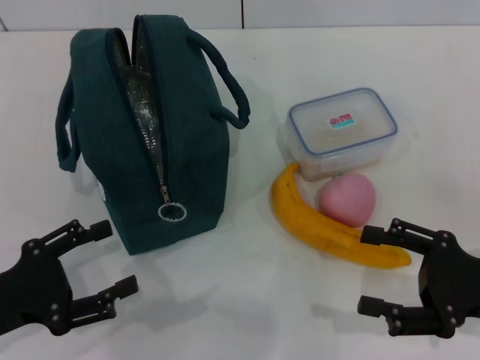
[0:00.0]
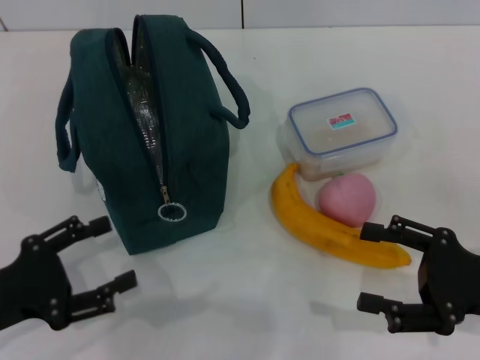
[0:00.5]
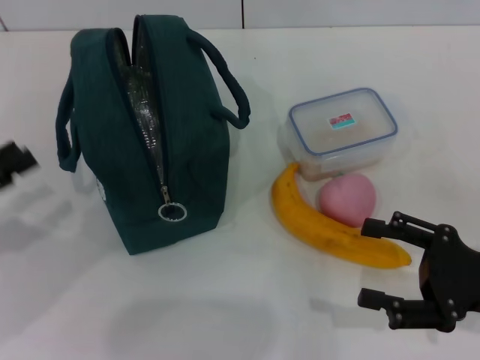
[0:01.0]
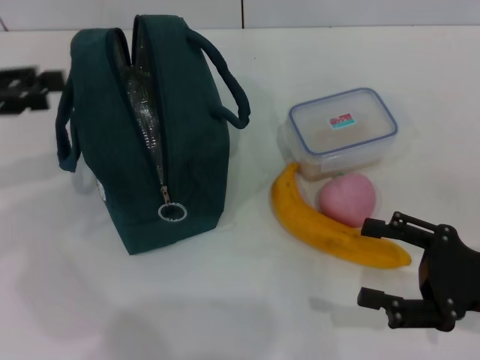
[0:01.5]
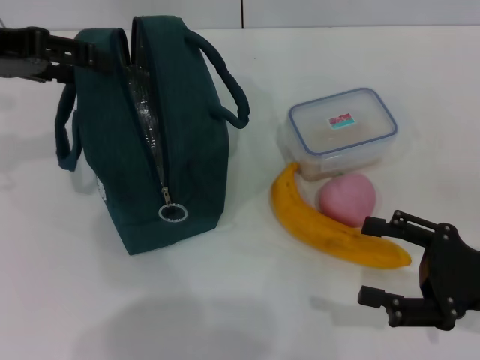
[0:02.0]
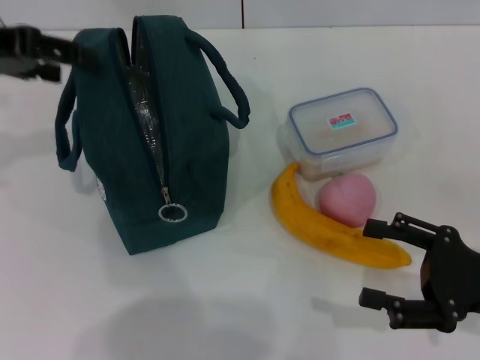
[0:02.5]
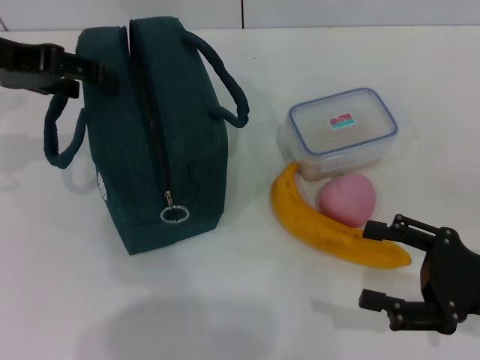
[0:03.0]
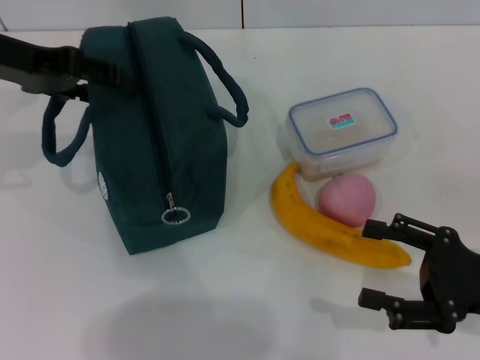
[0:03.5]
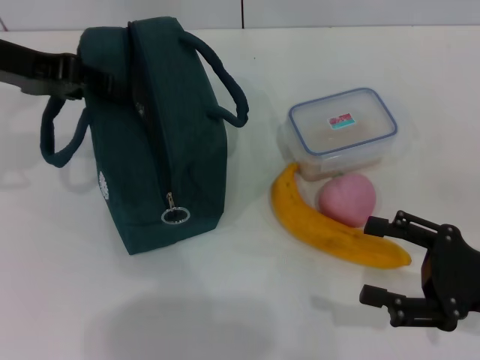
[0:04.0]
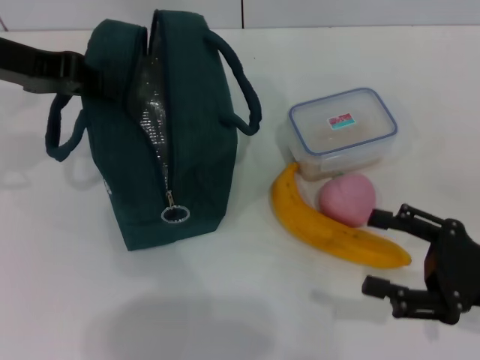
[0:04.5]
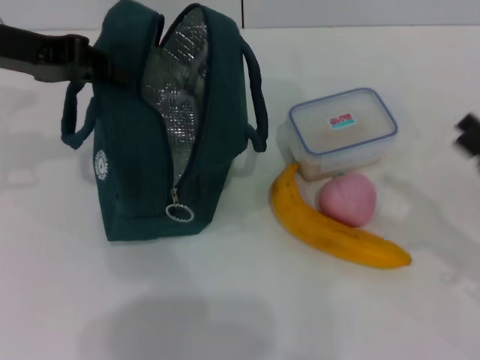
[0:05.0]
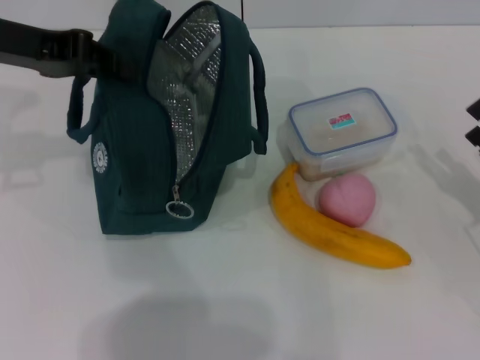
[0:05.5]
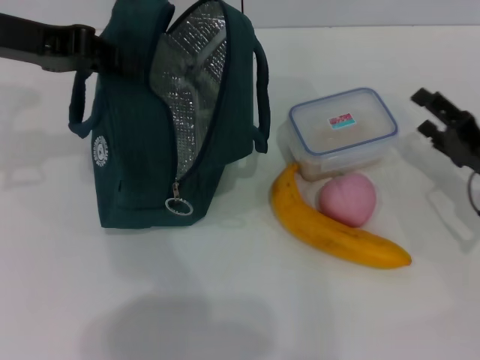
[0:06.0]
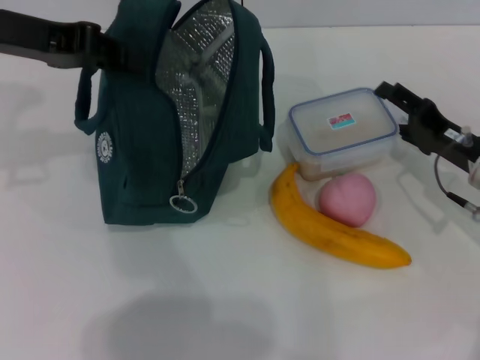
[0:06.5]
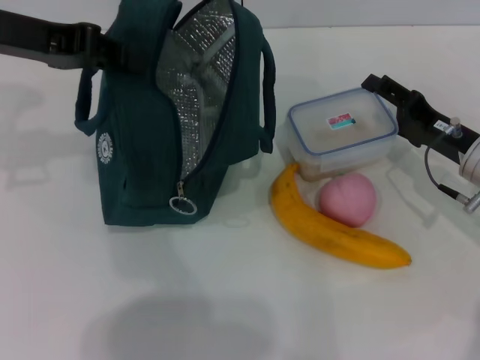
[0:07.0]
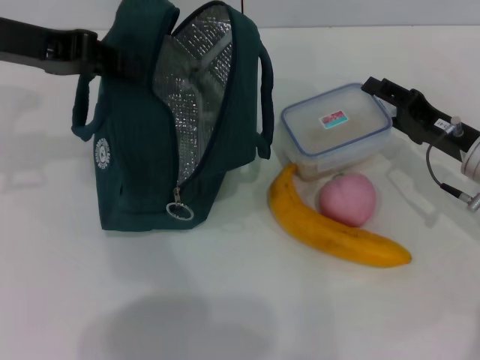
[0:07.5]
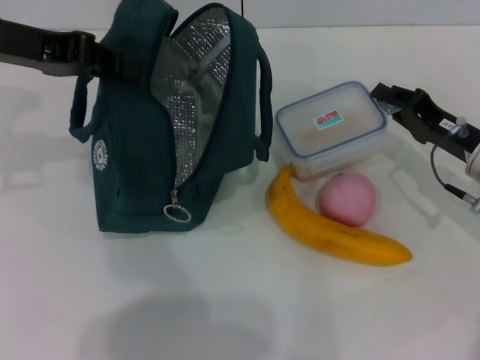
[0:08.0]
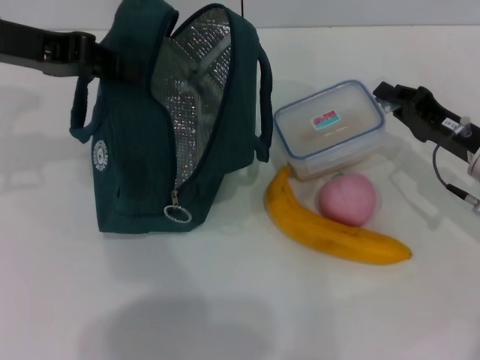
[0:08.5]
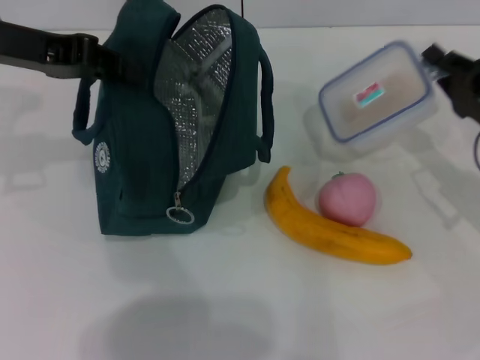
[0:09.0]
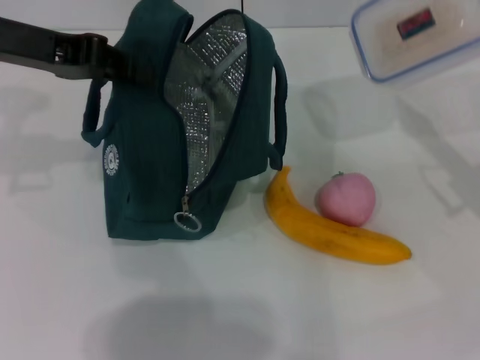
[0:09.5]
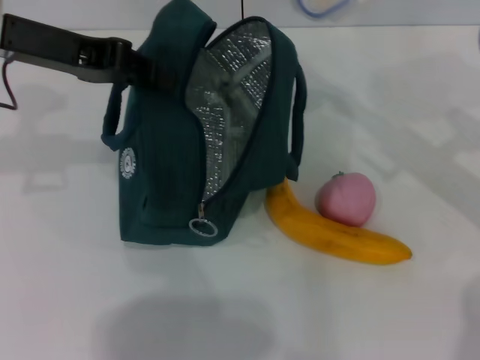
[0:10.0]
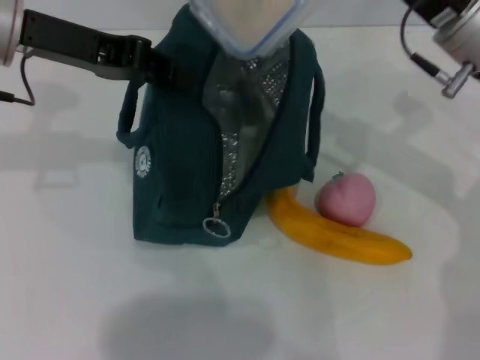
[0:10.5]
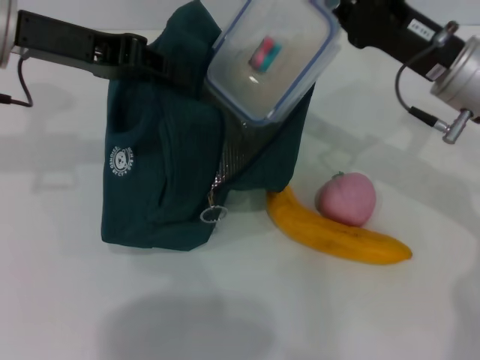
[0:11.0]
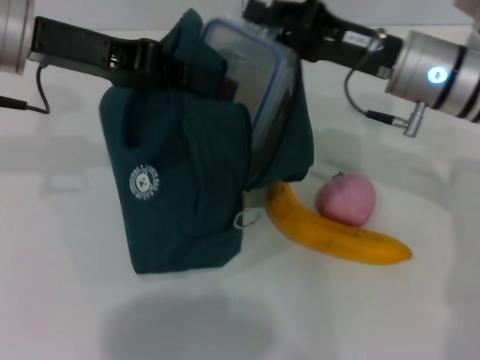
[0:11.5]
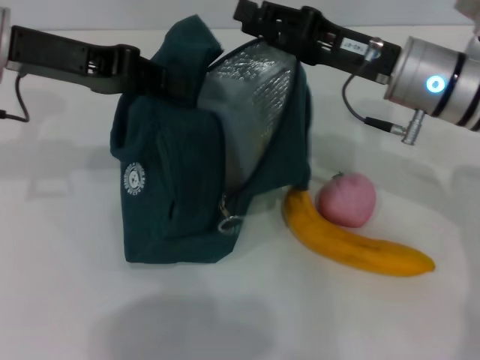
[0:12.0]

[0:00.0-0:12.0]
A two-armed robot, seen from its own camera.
Step, 0:00.0 to 0:04.5: Hold the lunch bag with your left hand.
Step, 0:05.0 to 0:08.5: Pick up the lunch box with your right hand.
Step, 0:09.0 to 0:12.0: Place the lunch box into the lunch bag with your right hand.
0:00.0 to 0:02.0: The left gripper is displaced upward and forward by some 25 cm.
0:02.0 to 0:04.0: The grippers stay close to where they were, moving slightly.
0:04.0 to 0:06.0: The right gripper travels forward by roughly 10 cm. Meanwhile the left gripper closes up.
0:06.0 to 0:08.0: The right gripper moves about 5 cm, and closes up.
0:08.0 to 0:10.0: The right gripper moves upward, roughly 10 cm.
0:10.0 to 0:12.0: The right gripper moves to the left, some 10 cm.

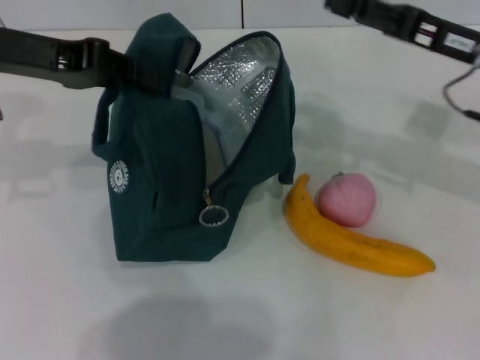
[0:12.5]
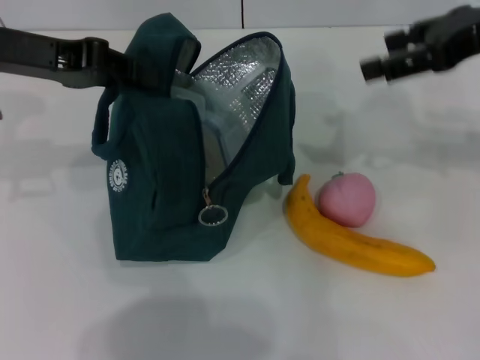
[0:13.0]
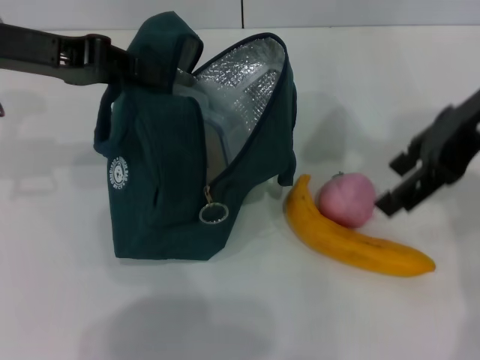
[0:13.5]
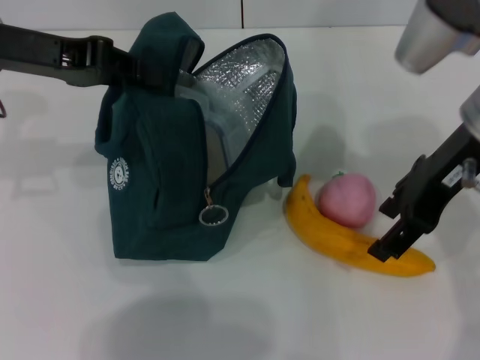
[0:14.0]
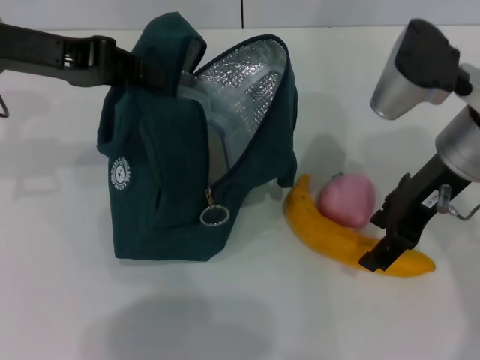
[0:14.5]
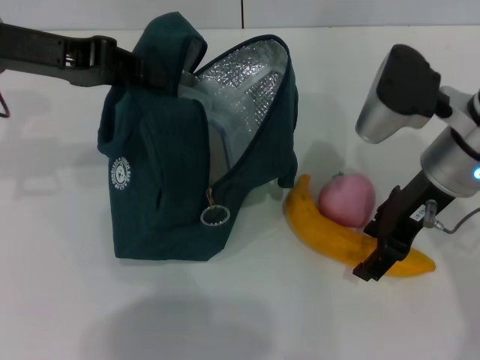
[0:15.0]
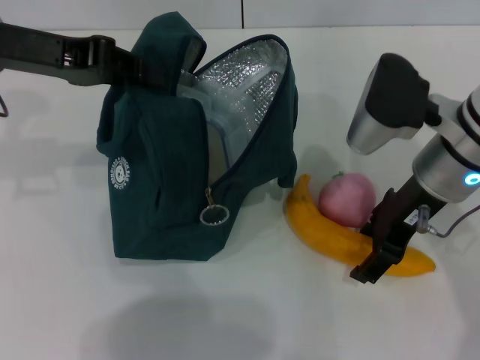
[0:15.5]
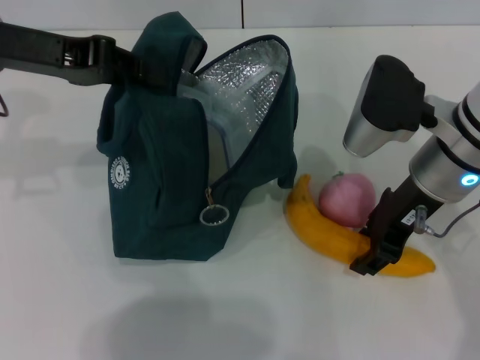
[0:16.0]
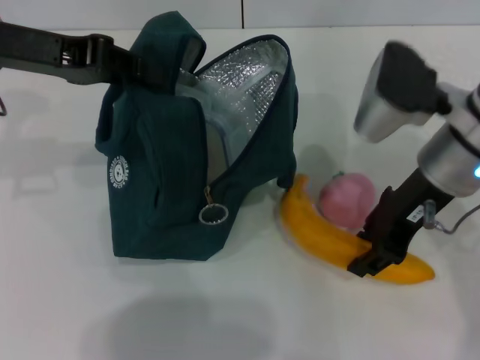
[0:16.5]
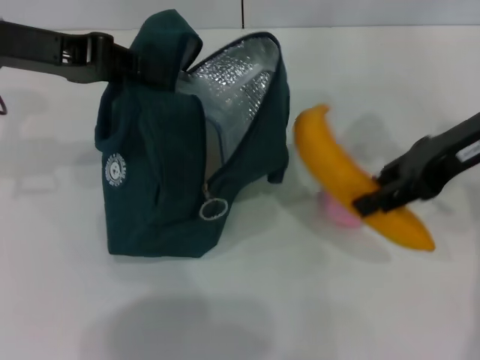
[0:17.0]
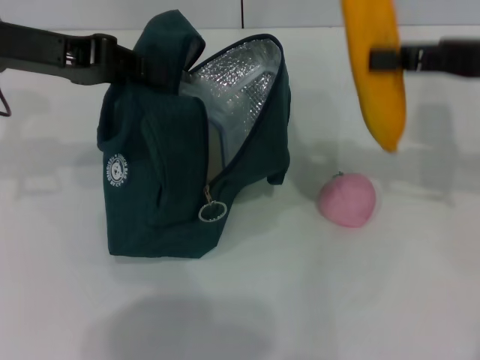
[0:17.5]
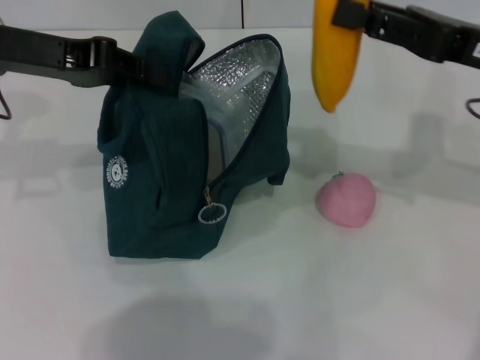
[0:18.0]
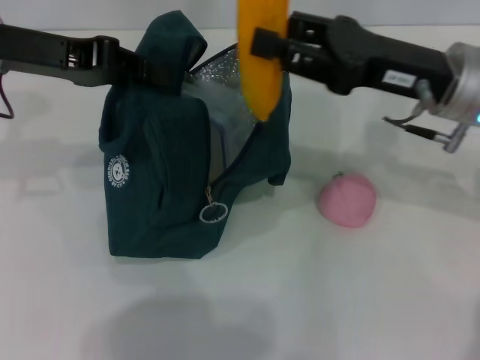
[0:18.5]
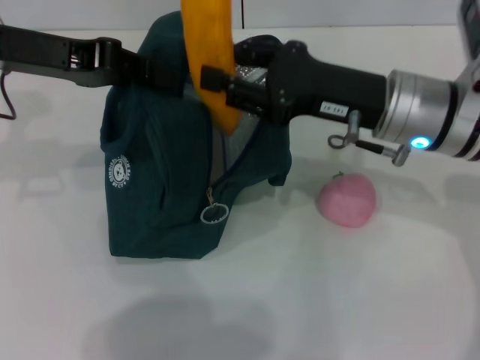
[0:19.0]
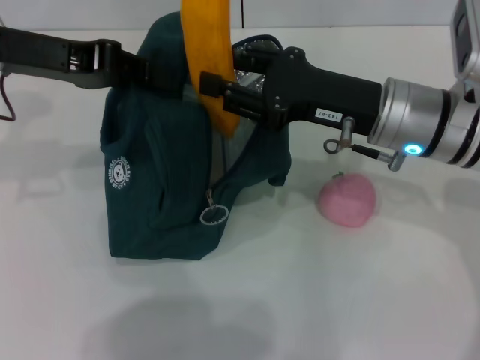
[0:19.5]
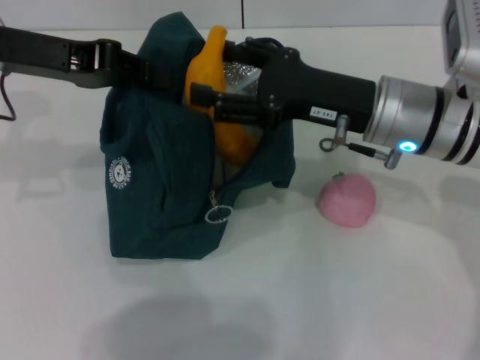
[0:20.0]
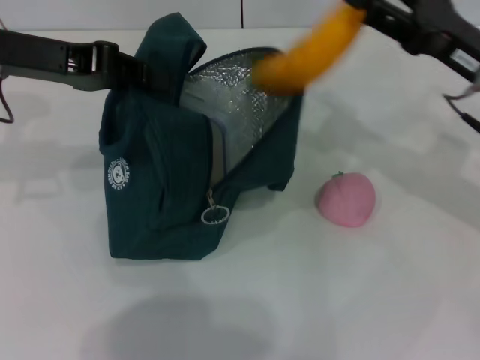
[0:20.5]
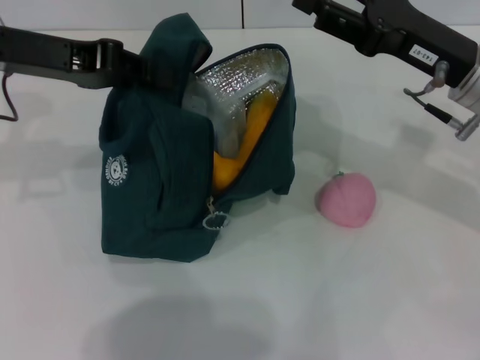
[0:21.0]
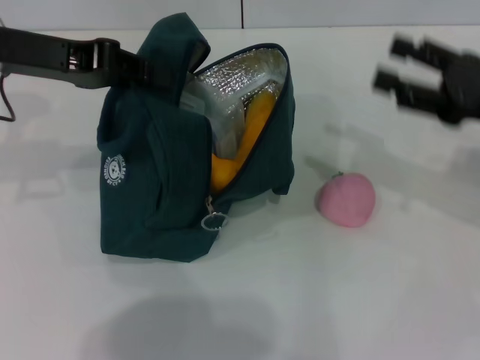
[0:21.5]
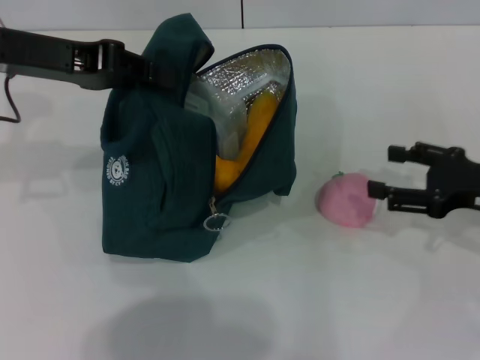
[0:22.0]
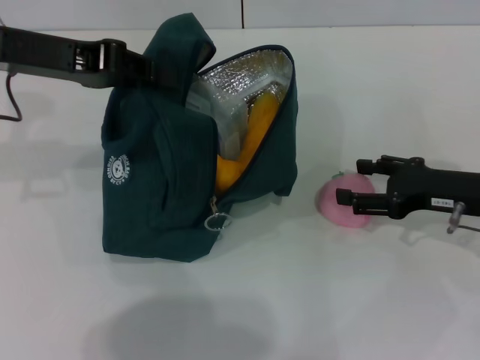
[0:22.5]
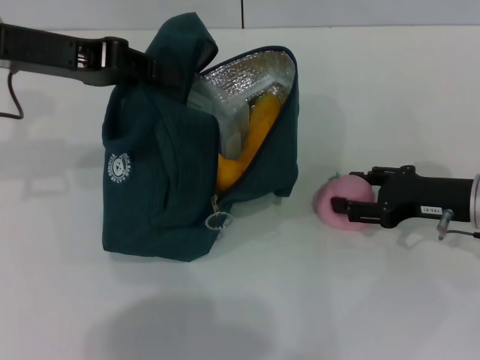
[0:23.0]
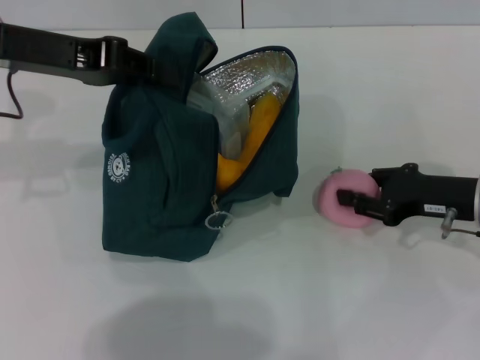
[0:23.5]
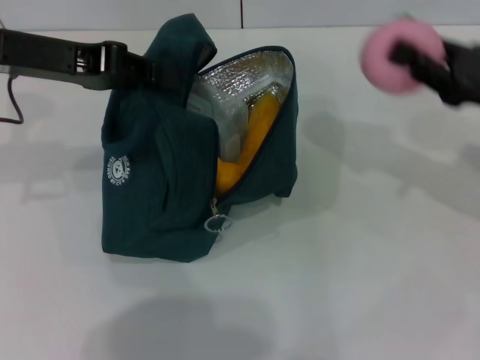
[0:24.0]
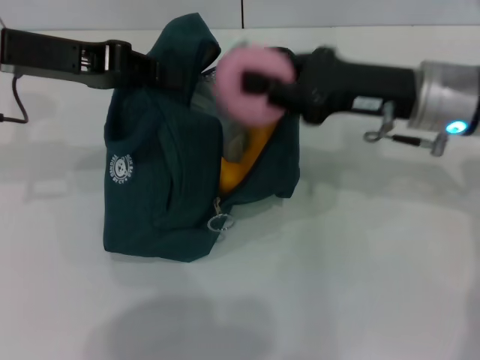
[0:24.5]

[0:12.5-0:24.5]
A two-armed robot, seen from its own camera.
Step, 0:12.5 to 0:16.0: Take the banana with your right hand.
Step, 0:16.5 to 0:21.0: Put the banana into the lunch bag with your right hand.
Step, 0:21.5 to 0:23.0: Grab the peach with your right hand.
0:12.5 to 0:14.5: The right gripper shifts approximately 5 cm to the left, and goes upward and returns, some 10 cm each way.
0:14.5 to 0:16.5: The right gripper closes up.
0:16.5 to 0:18.5: The right gripper reaches roughly 10 cm to the right, then returns.
0:18.5 to 0:20.5: The right gripper shifts roughly 5 cm to the right, and opens its fingers.
0:20.5 to 0:22.5: The right gripper goes roughly 5 cm downward.
0:22.5 to 0:24.5: The right gripper goes some 10 cm to the left and upward, and closes.

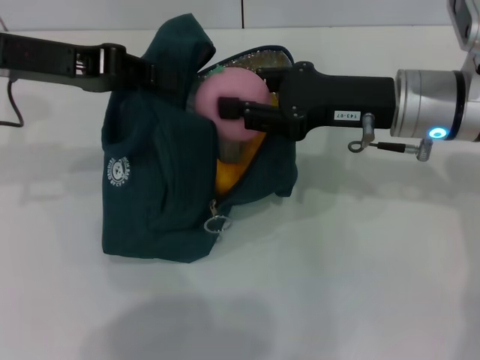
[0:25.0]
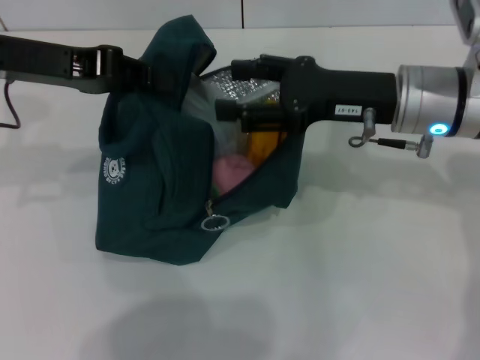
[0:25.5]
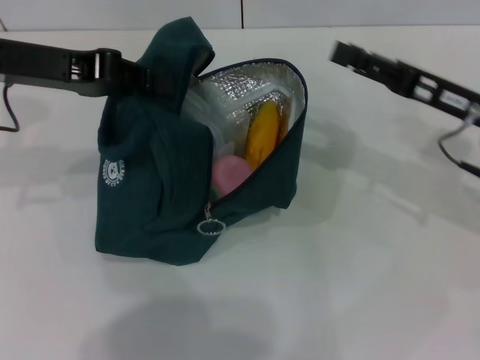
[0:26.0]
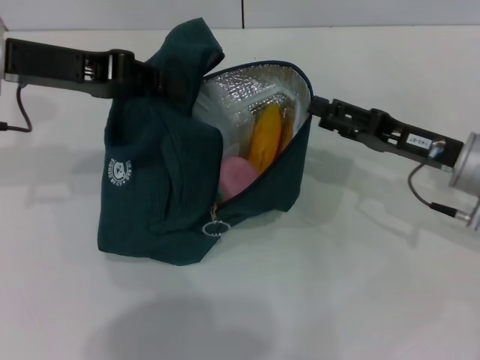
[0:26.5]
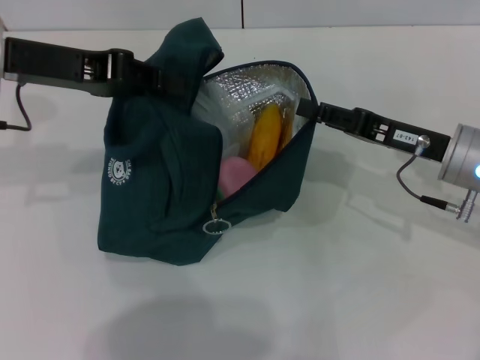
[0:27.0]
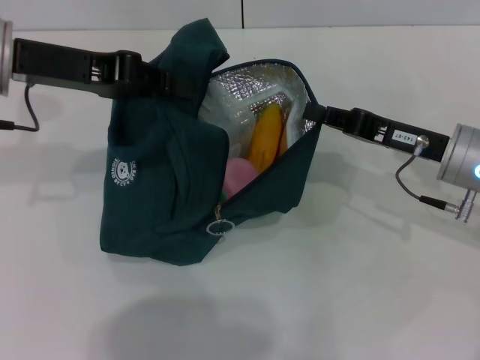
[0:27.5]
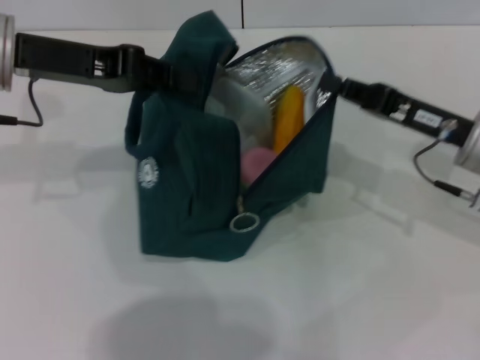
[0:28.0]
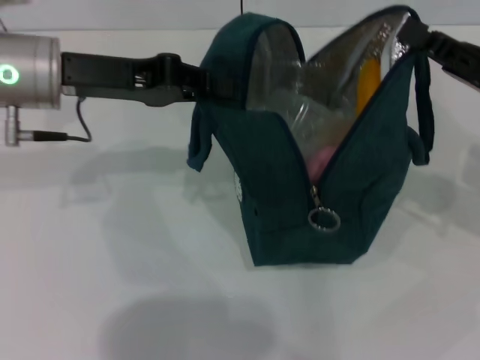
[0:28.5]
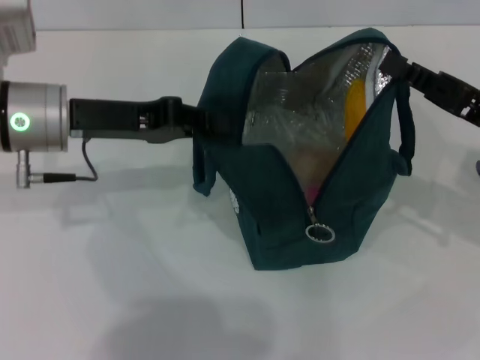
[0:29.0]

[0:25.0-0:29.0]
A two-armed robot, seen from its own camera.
0:25.0 to 0:27.0: The right gripper heads downward and to the right, covering approximately 10 cm.
0:27.0 to 0:29.0: The left gripper is displaced downward by approximately 5 cm, while the right gripper moves to the right, some 5 cm, and closes.
